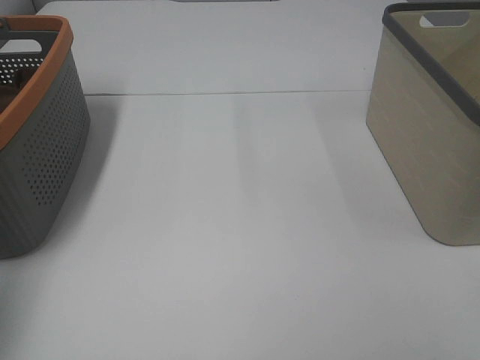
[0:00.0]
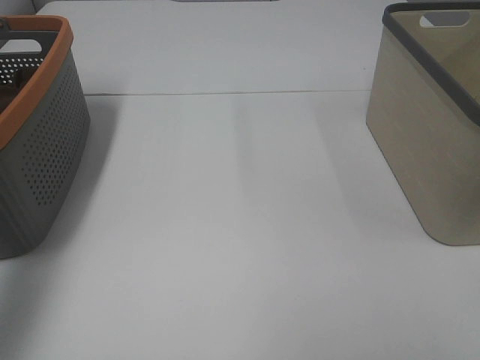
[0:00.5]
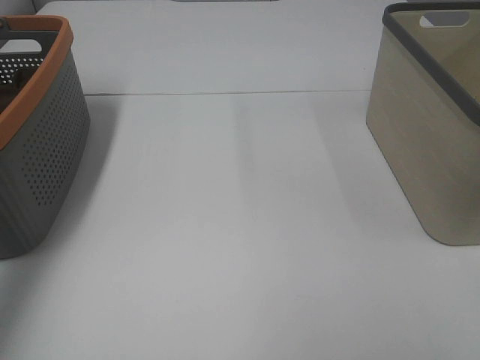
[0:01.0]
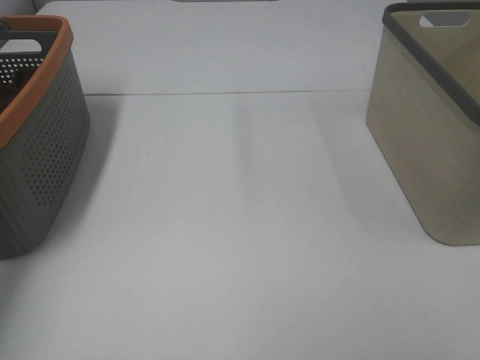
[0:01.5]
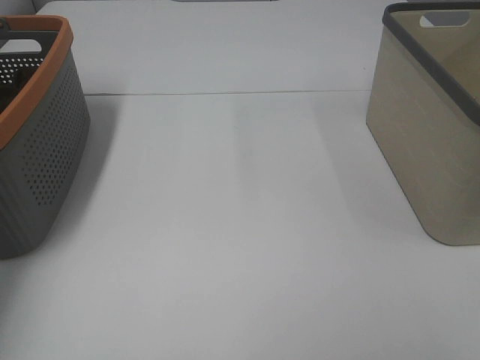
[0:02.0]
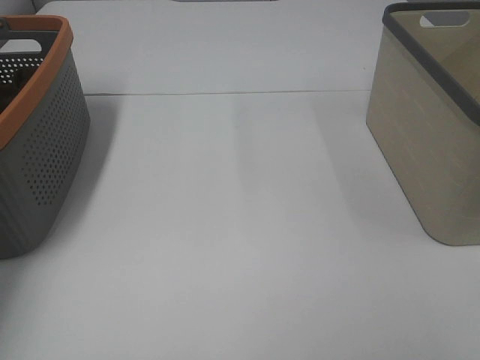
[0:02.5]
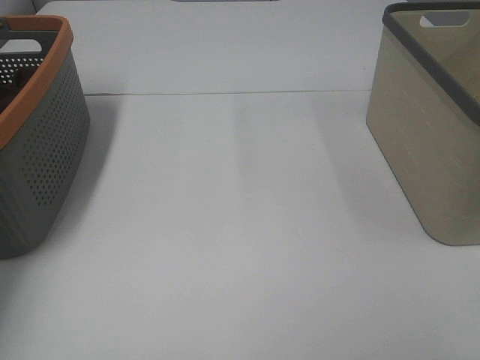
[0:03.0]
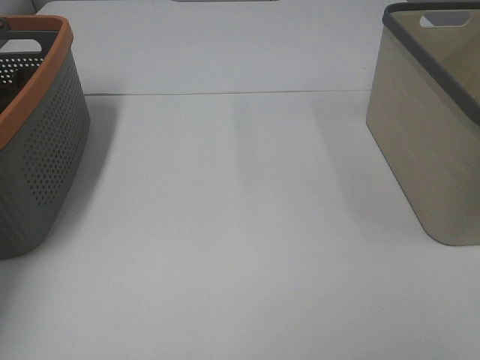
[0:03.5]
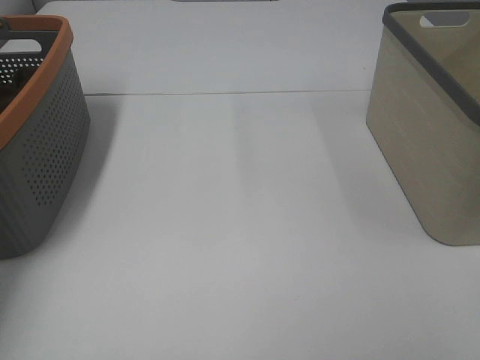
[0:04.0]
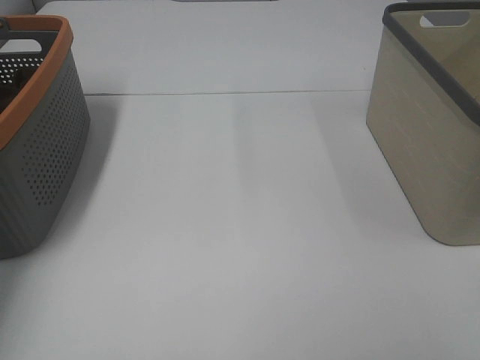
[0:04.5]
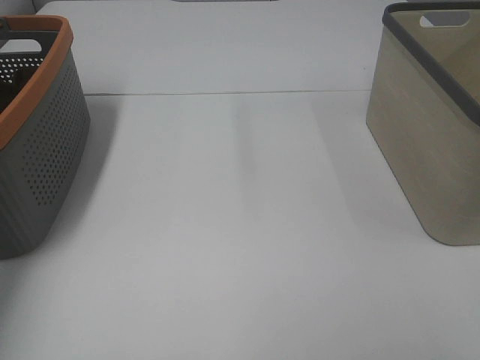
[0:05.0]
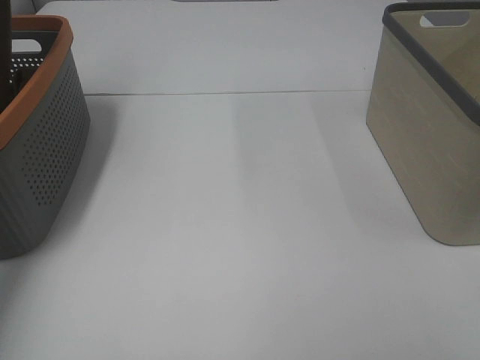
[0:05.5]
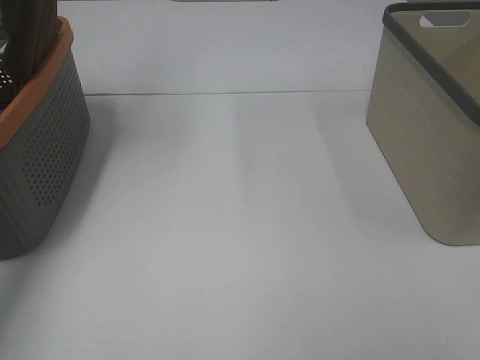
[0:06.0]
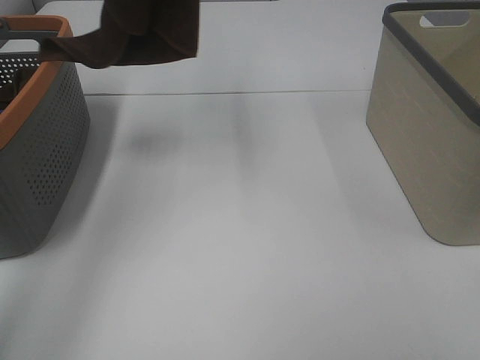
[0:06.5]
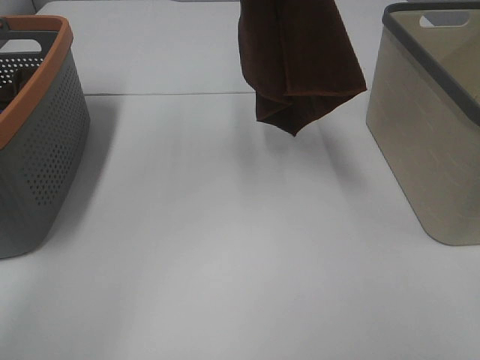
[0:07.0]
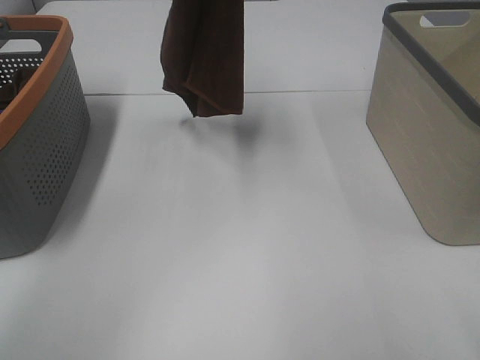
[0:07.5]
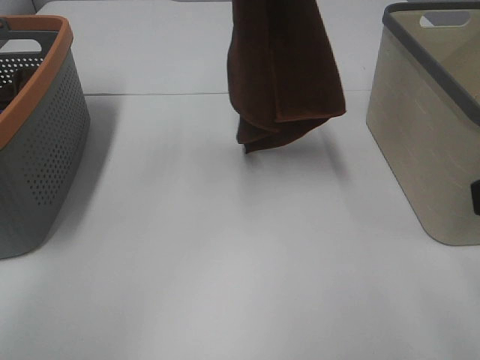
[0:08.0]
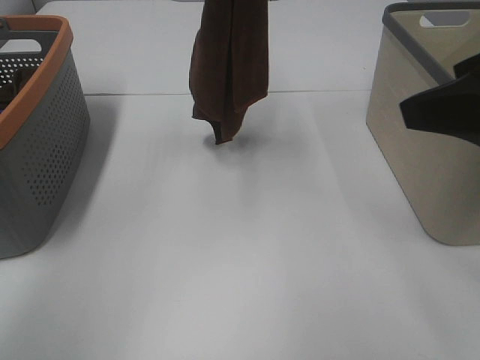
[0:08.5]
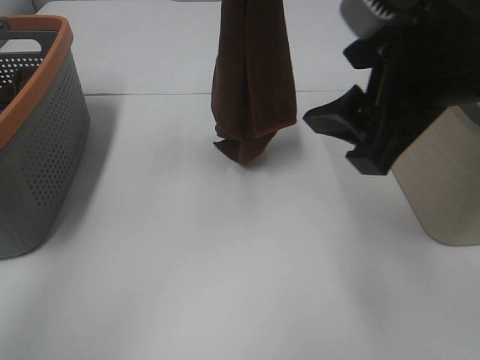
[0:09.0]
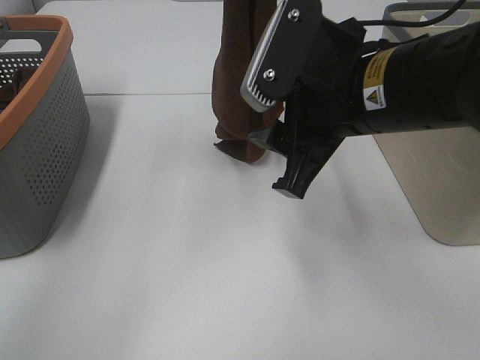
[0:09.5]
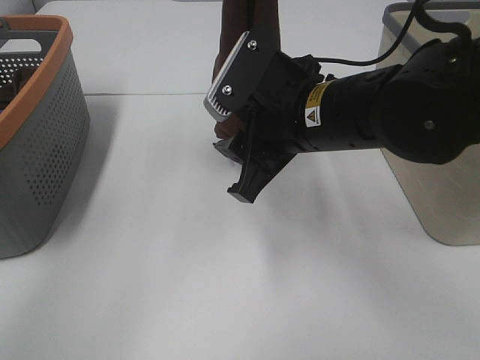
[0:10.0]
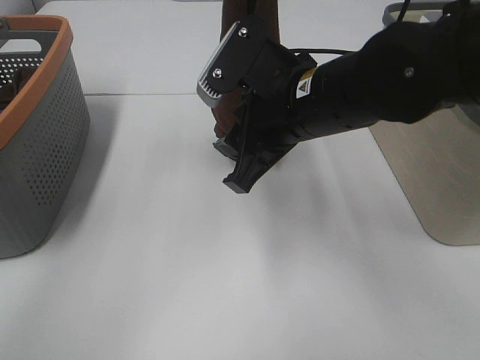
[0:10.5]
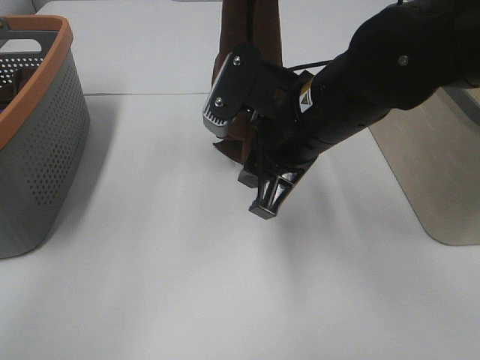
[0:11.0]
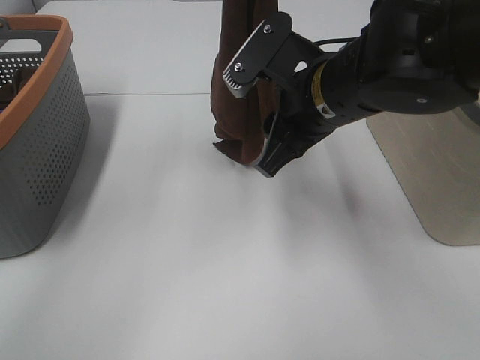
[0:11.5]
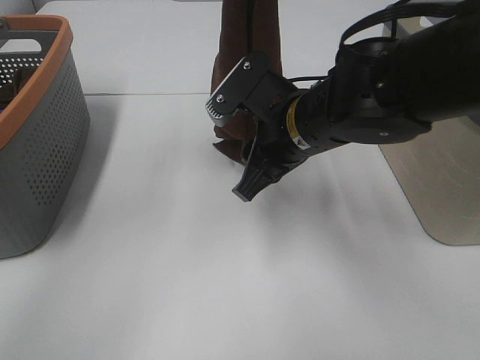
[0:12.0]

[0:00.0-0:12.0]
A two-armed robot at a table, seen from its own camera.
Task of the whole recording: Remove the towel and place it.
Step, 0:04.5 to 0:11.5: Right hand: grab a corner of the brown towel and straighten it.
0:04.0 to 0:06.0: The left gripper heads upward and to the right, covering some 30 cm.
0:06.0 to 0:08.0: The left gripper is displaced to the right by roughly 20 cm; the right gripper travels forward by roughly 10 cm.
0:08.0 to 0:10.0: The right gripper is displaced to the left, forward and downward by some 25 cm.

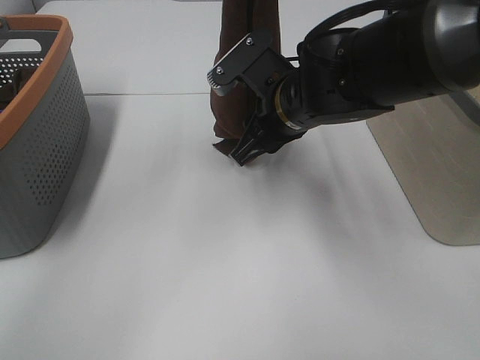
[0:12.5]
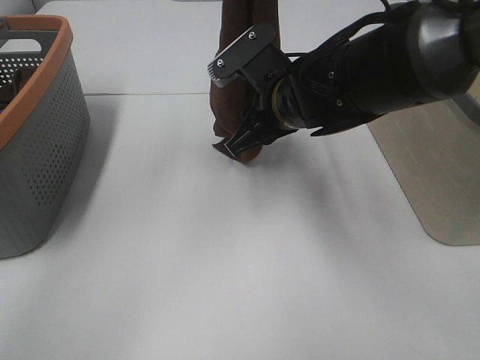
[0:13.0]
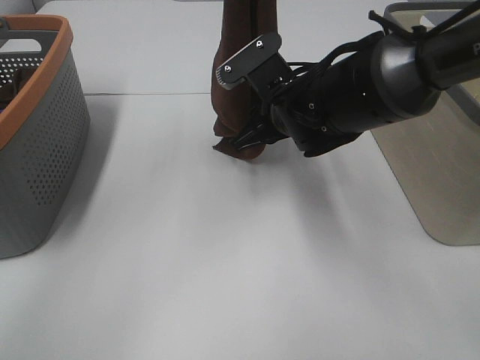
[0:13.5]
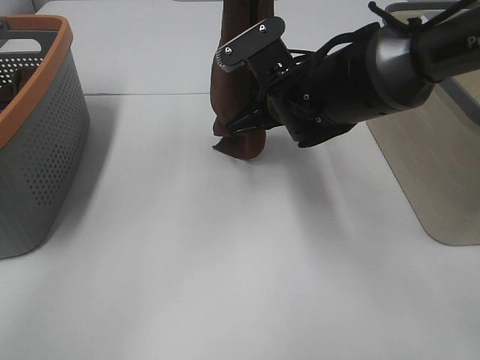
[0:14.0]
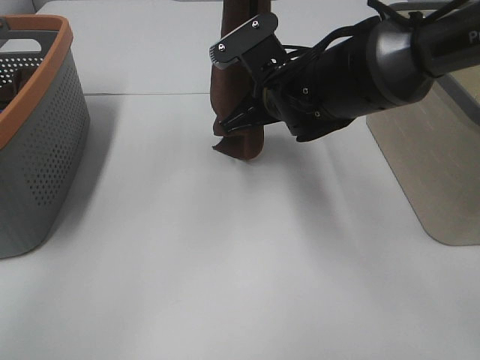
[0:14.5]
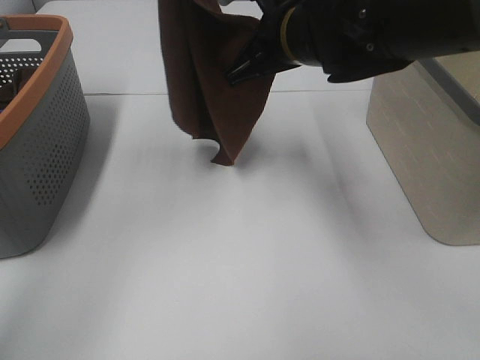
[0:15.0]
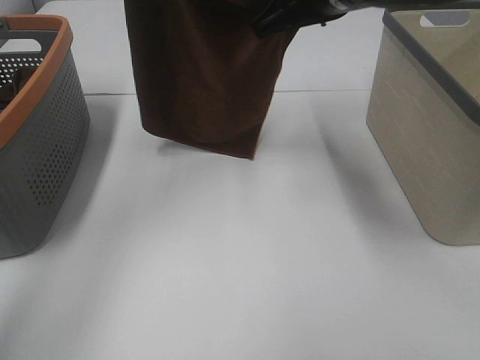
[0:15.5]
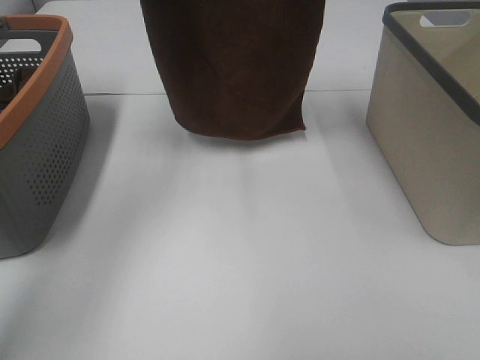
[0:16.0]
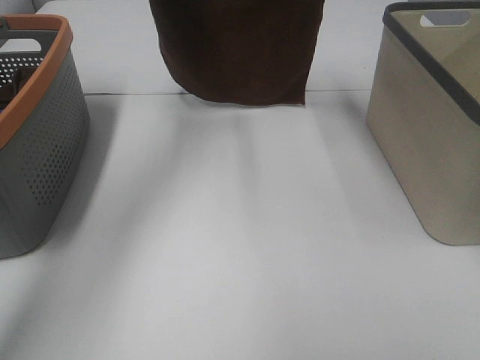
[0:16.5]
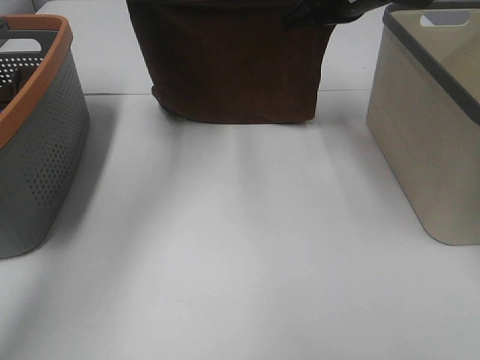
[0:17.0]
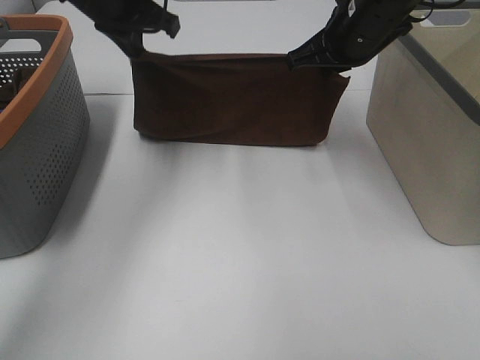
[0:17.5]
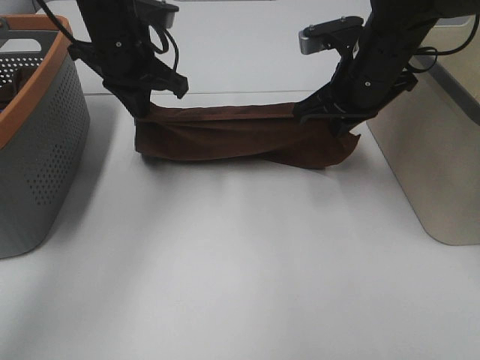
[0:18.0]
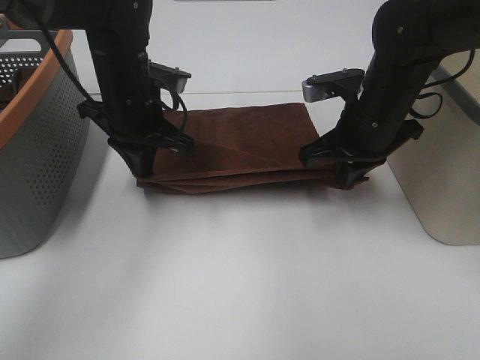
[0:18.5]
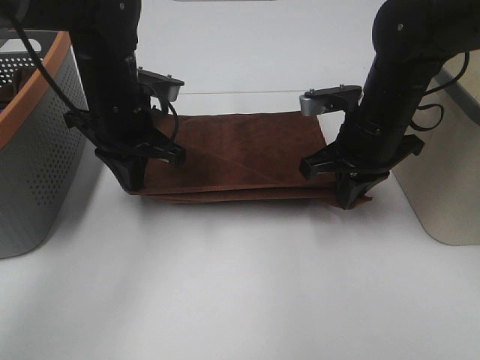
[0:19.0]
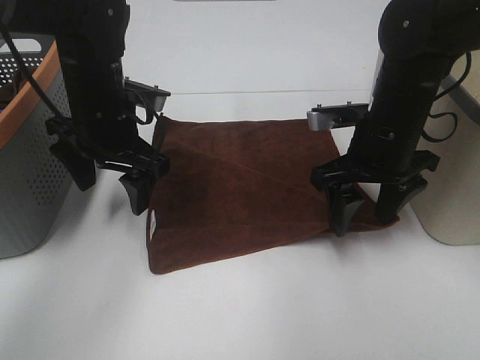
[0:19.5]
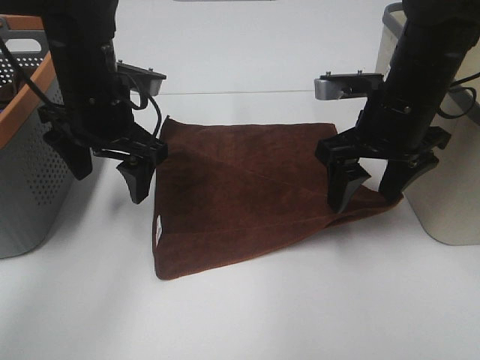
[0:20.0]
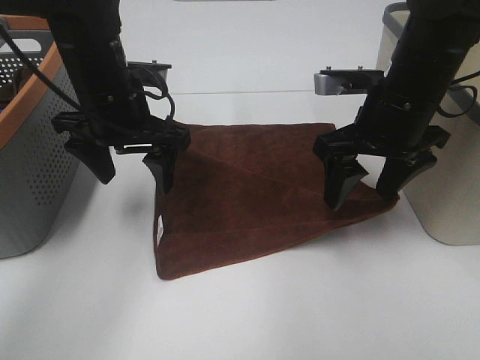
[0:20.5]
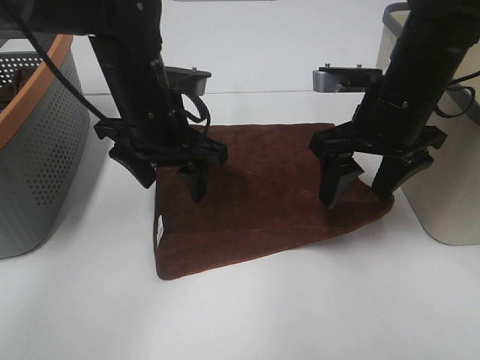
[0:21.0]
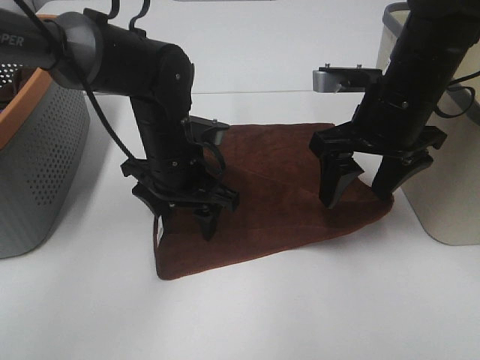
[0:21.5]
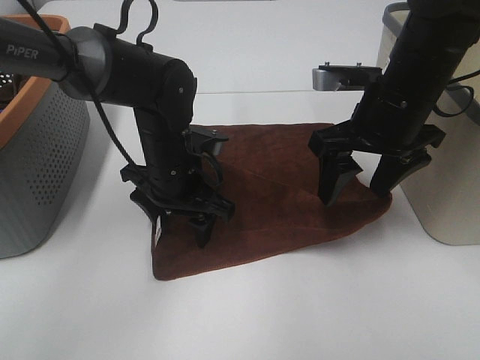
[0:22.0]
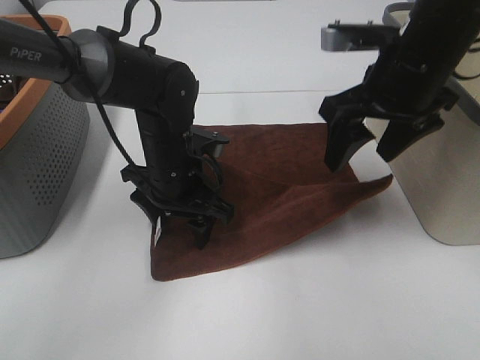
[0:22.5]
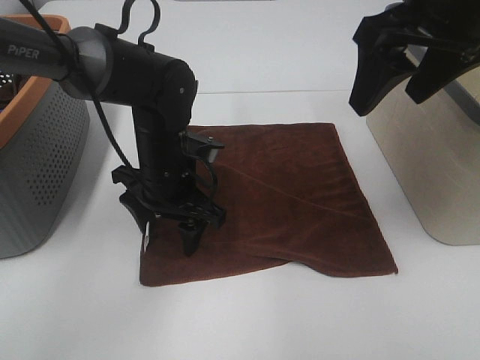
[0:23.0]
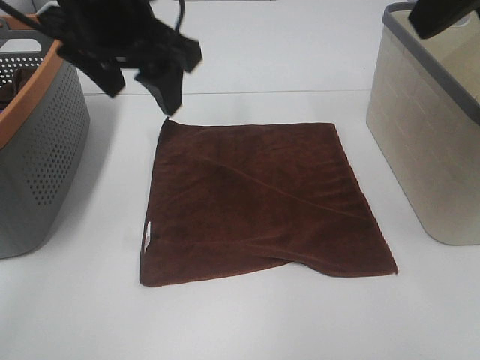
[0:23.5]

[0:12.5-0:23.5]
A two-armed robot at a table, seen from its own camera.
Task of the whole recording: Remove the towel and place it.
Step, 0:12.5 to 0:14.0: Right hand: spread the brown towel flat on the table.
0:12.5 to 0:14.5: The right gripper closes.
0:14.5 to 0:16.0: The left gripper heads to the left and forward, covering about 10 cm; the right gripper heads upward and to the right, covering some 20 cm.
0:16.0 to 0:18.0: The two grippers go roughly 15 cm downward.
0:18.0 to 0:20.0: Both grippers travel together backward, about 5 cm. The left gripper opens its fingers. The right gripper opens.
0:20.0 to 0:21.5: The left gripper shifts approximately 10 cm downward and to the right.
0:21.5 to 0:23.5: The left gripper moves upward, some 20 cm. Meanwhile the right gripper travels upward and backward by roughly 25 cm.

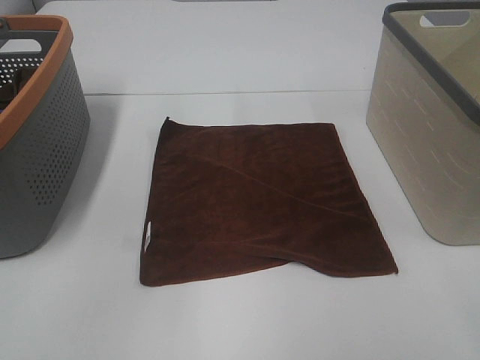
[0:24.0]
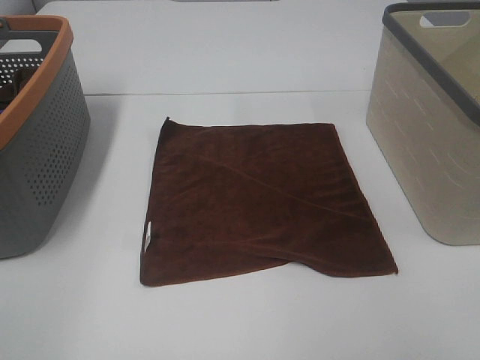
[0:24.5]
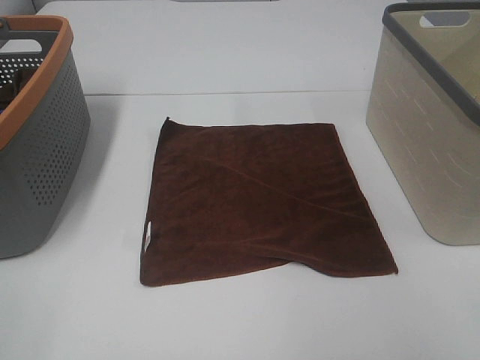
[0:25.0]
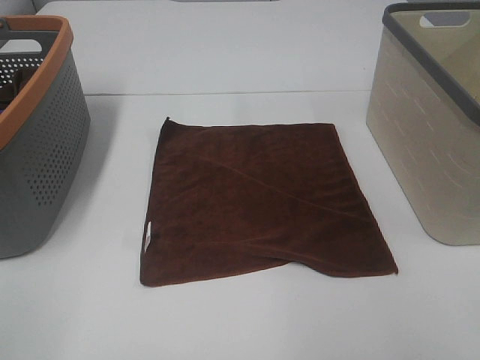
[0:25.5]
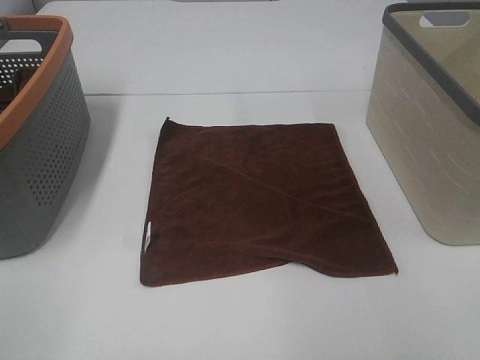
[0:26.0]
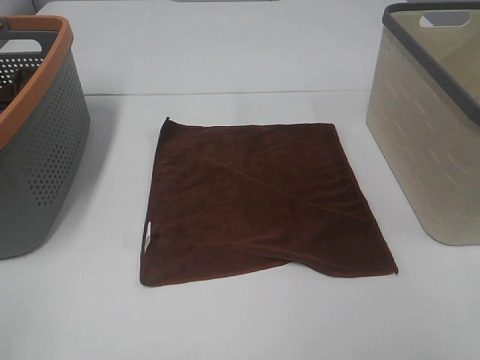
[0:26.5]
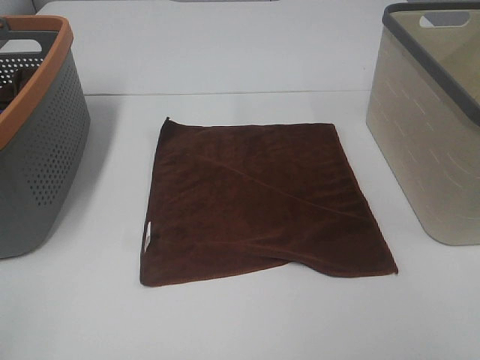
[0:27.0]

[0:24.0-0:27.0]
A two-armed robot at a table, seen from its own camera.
Task of the whole recording: Remove the towel and place it.
0:24.0 to 0:25.5: The left gripper moves backward, downward and to the left, some 25 cm.
